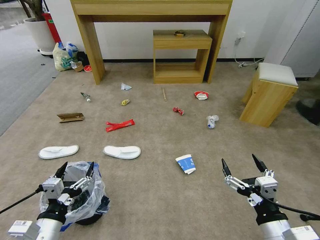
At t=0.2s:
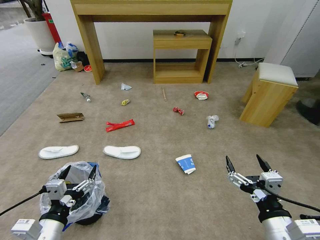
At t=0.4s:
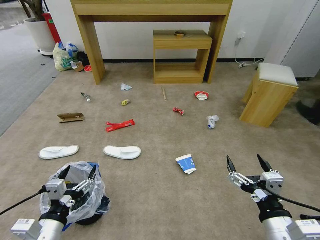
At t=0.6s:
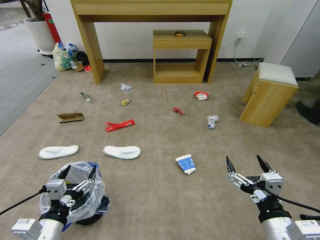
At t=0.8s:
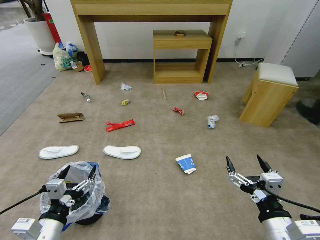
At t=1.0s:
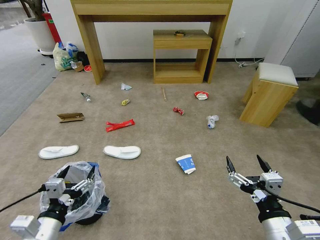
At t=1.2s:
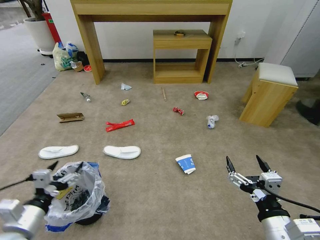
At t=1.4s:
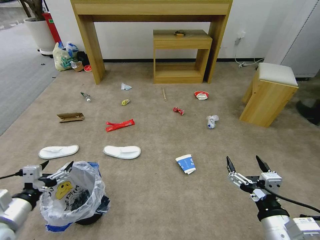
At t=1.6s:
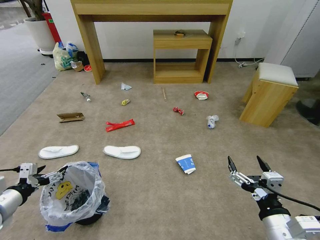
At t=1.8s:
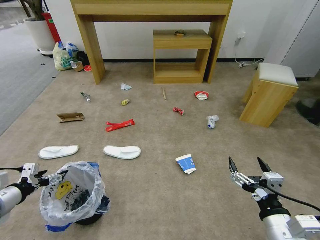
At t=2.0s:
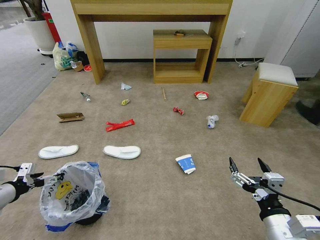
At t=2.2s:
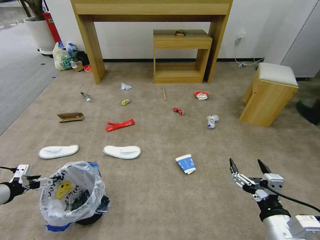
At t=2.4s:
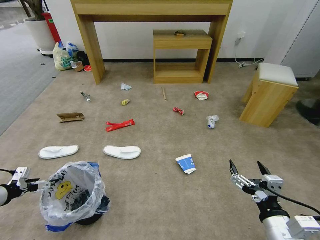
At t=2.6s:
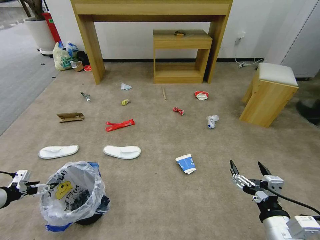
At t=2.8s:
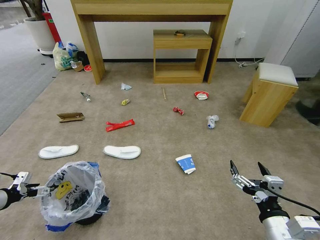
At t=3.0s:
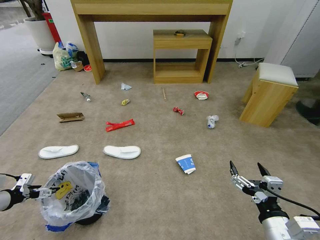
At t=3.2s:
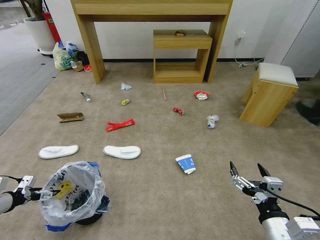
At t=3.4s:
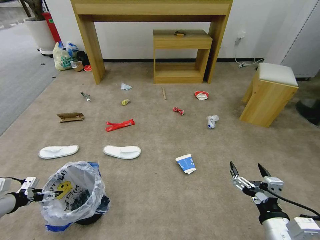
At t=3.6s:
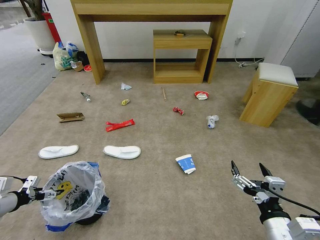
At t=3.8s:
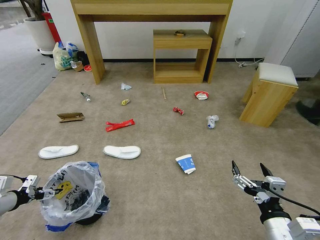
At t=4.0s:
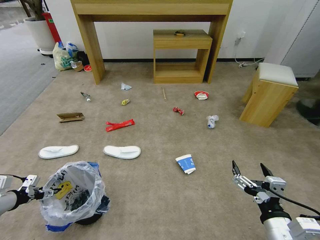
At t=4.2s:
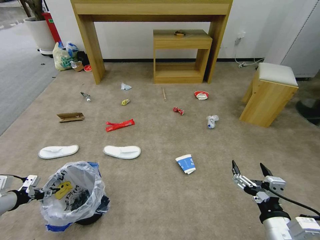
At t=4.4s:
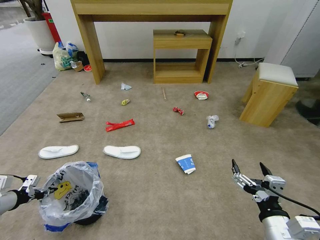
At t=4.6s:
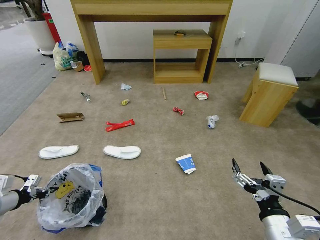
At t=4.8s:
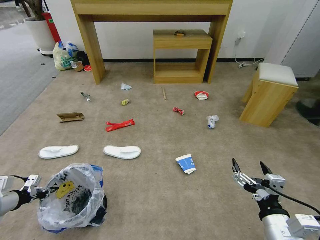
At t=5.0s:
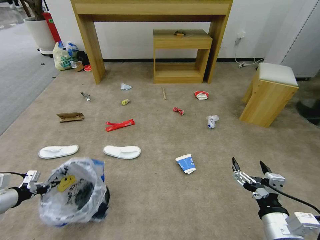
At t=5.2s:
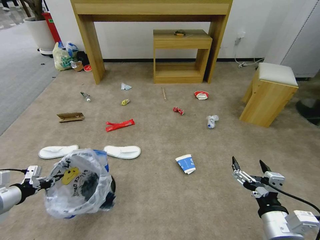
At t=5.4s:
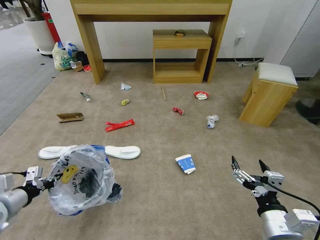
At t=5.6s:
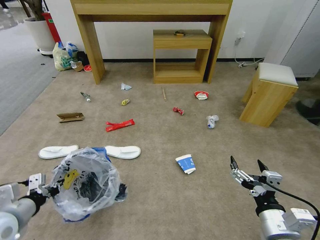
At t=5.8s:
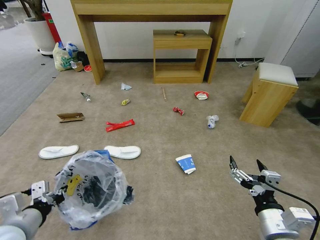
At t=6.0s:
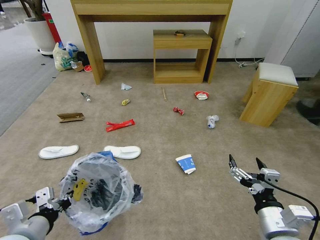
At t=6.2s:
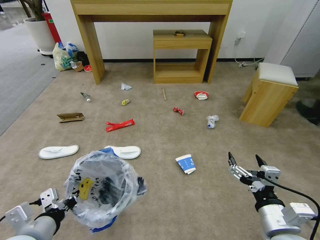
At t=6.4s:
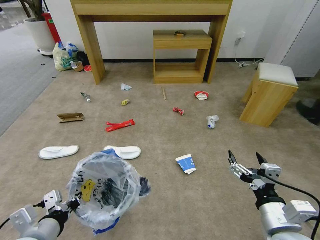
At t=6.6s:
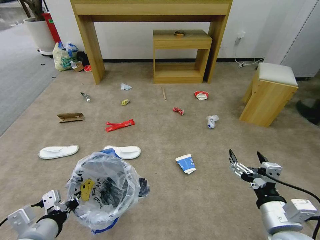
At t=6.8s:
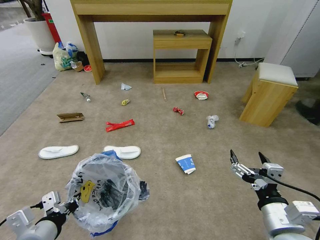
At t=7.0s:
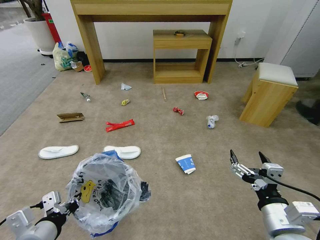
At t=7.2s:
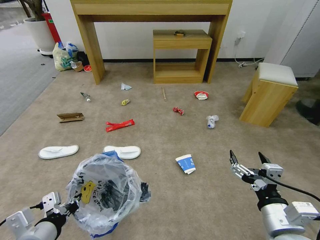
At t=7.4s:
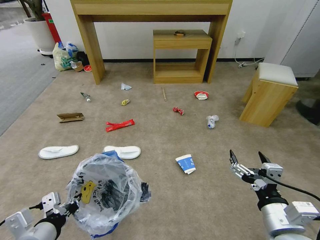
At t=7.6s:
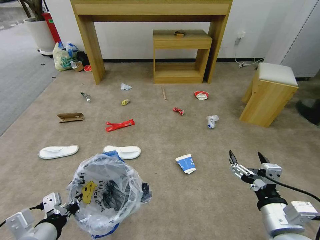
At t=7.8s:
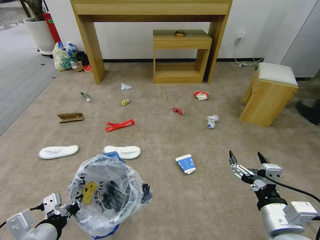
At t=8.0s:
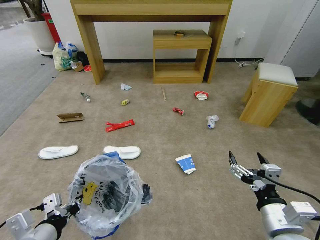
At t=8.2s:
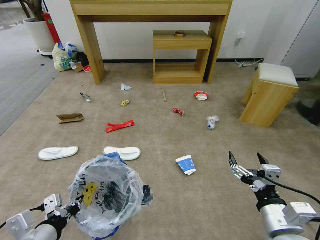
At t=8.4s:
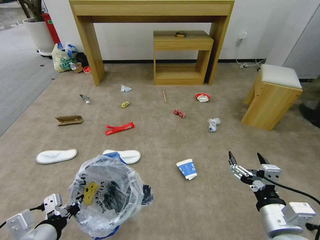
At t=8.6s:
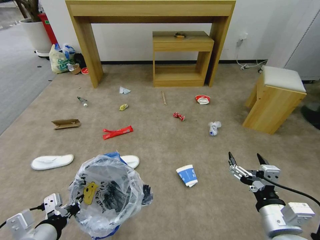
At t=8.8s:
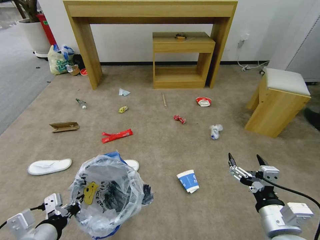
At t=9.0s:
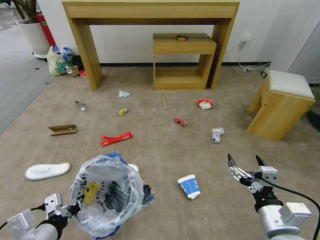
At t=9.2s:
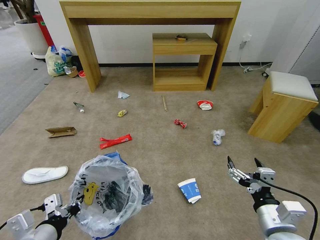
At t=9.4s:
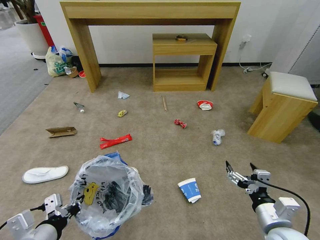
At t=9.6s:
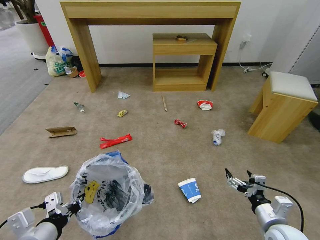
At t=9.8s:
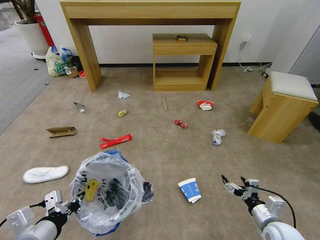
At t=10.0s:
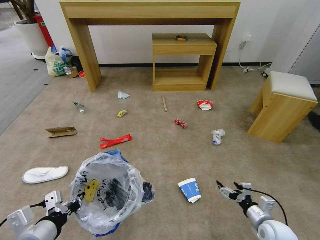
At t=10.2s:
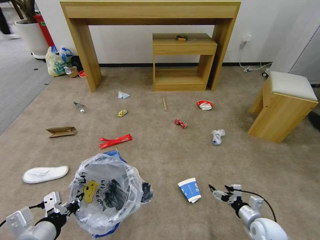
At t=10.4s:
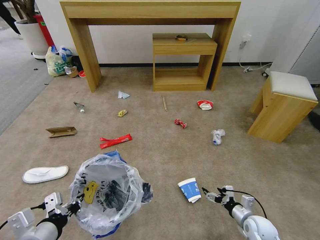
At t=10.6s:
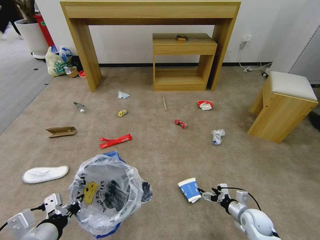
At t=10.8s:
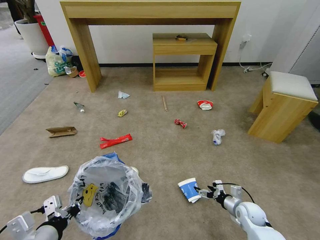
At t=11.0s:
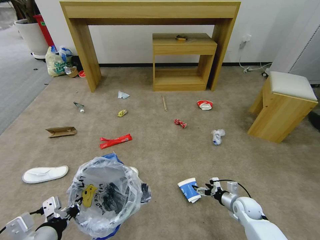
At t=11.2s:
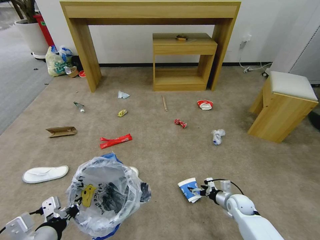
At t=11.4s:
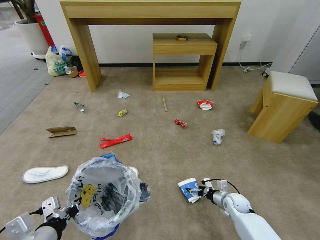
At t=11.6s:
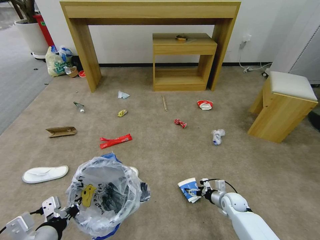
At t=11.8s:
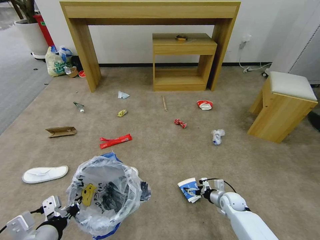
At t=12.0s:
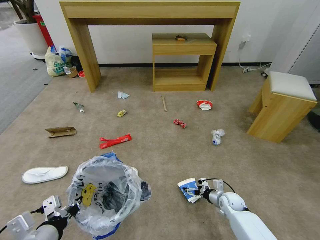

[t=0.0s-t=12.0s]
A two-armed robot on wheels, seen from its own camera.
Task of the whole recording: Pick up the trash bin and place the garbage on the floor into it.
t=1.6s to t=3.0s: The left gripper moves to the left and forward, roughly 10 cm.
t=3.0s to t=4.4s: The left gripper closes up.
t=4.4s to t=6.0s: The left gripper moves to the right and backward, about 25 cm.
t=6.0s to t=7.6s: The grippers stay close to where they were, moving slightly.
t=9.0s to t=10.4s: The right gripper moves downward and forward, roughly 25 cm.
t=10.4s to t=12.0s: The right gripper heads forward and downward, covering roughly 10 cm.

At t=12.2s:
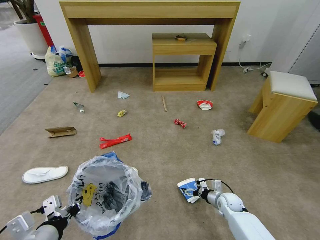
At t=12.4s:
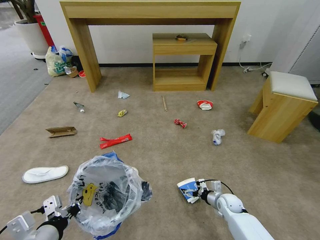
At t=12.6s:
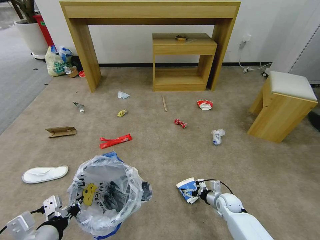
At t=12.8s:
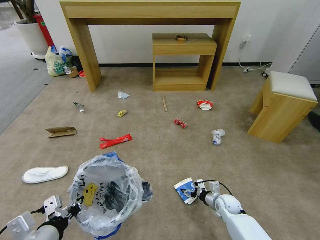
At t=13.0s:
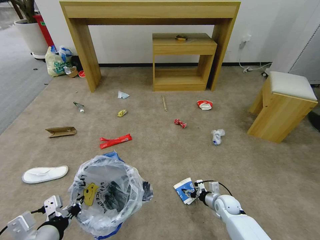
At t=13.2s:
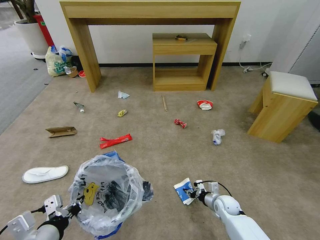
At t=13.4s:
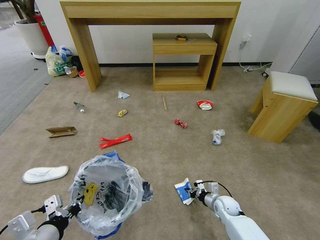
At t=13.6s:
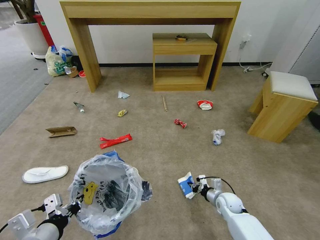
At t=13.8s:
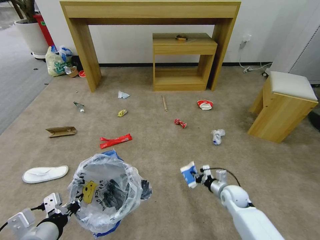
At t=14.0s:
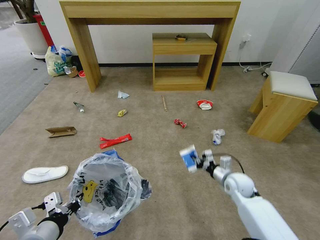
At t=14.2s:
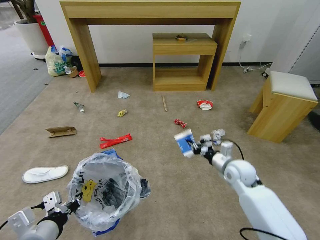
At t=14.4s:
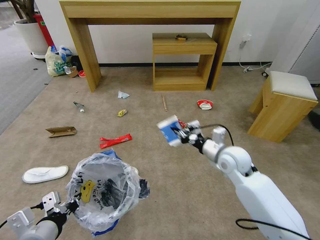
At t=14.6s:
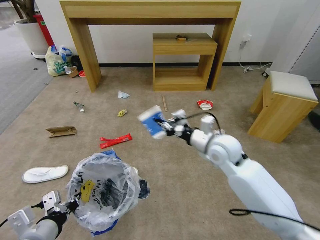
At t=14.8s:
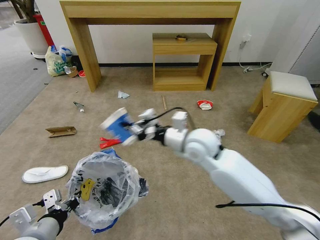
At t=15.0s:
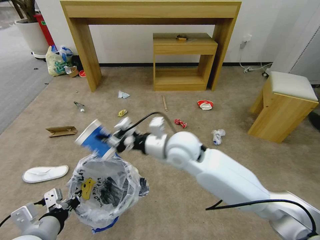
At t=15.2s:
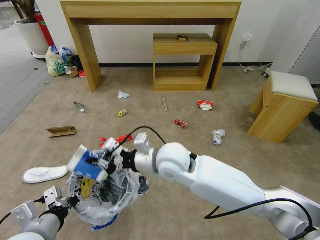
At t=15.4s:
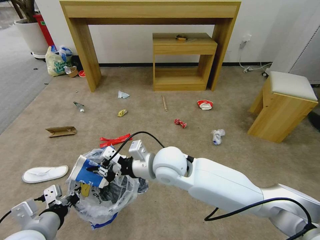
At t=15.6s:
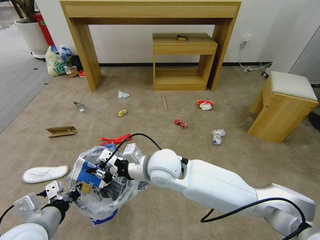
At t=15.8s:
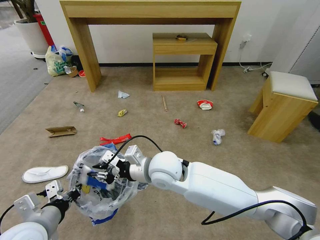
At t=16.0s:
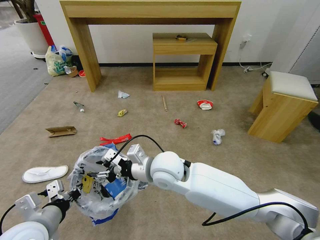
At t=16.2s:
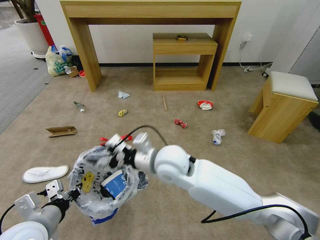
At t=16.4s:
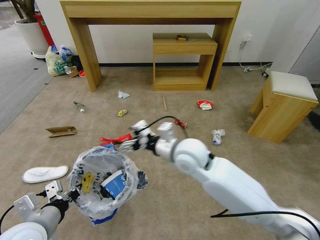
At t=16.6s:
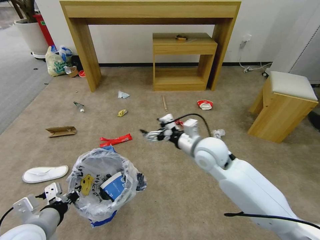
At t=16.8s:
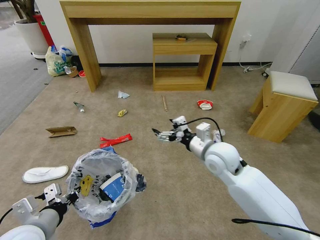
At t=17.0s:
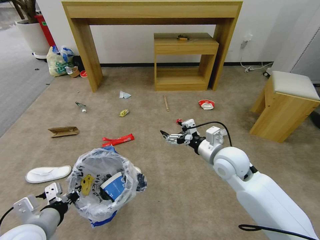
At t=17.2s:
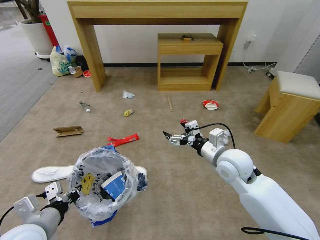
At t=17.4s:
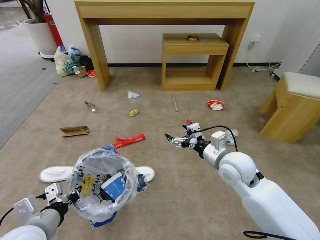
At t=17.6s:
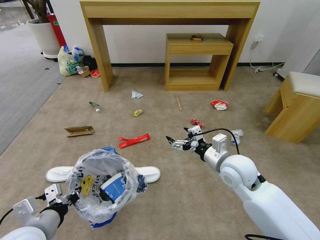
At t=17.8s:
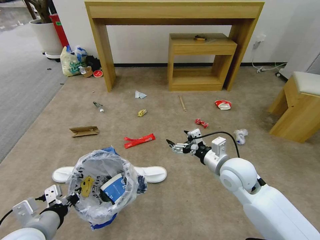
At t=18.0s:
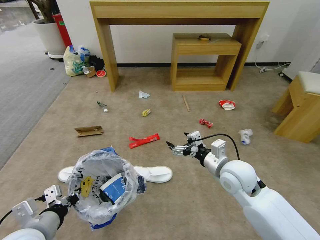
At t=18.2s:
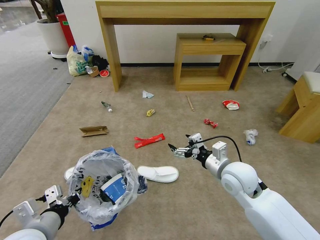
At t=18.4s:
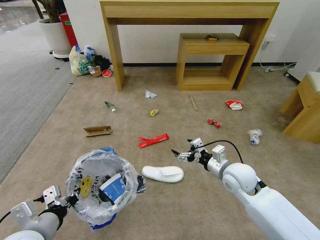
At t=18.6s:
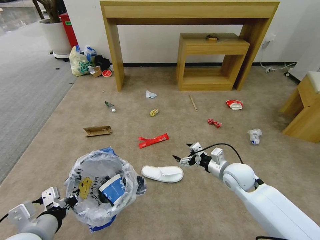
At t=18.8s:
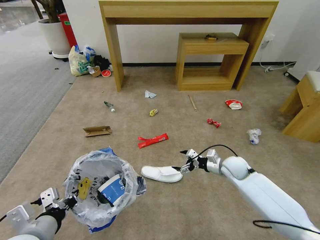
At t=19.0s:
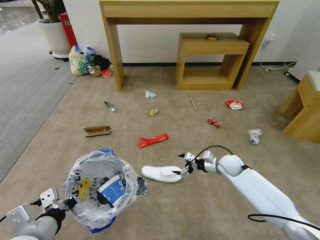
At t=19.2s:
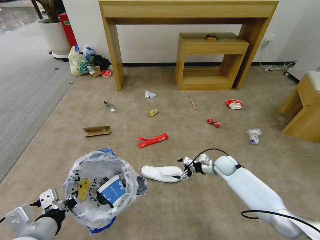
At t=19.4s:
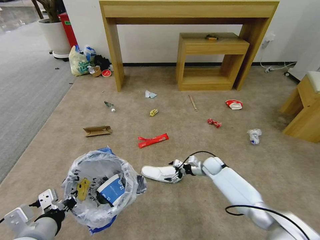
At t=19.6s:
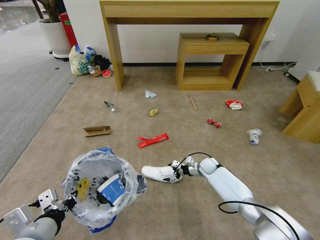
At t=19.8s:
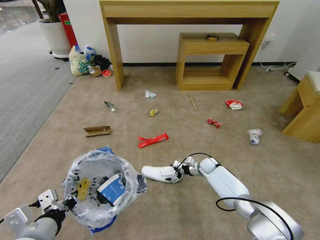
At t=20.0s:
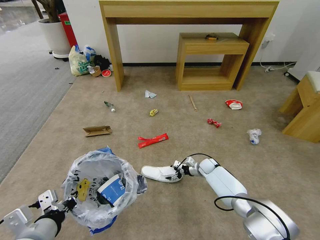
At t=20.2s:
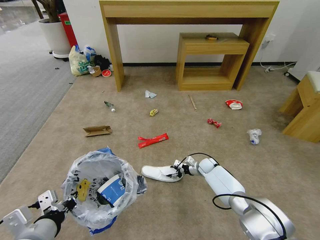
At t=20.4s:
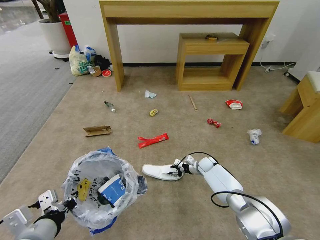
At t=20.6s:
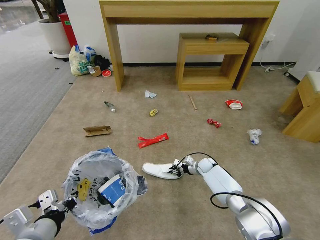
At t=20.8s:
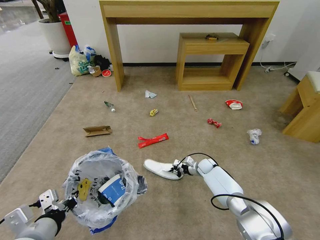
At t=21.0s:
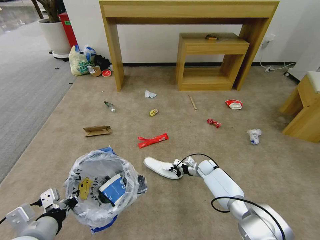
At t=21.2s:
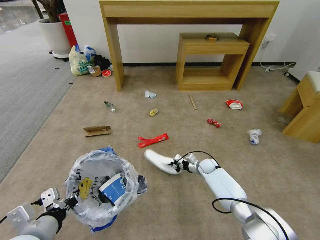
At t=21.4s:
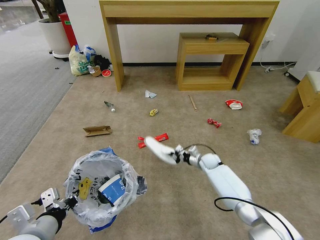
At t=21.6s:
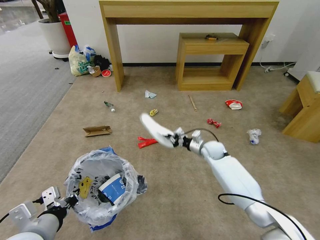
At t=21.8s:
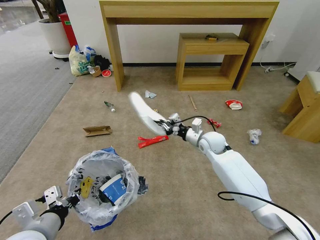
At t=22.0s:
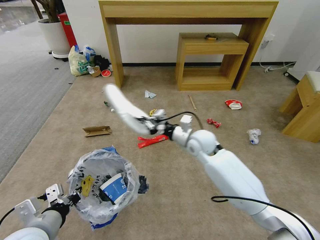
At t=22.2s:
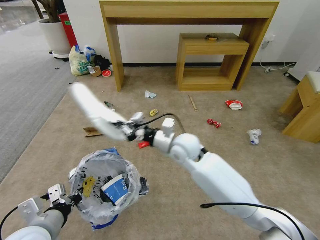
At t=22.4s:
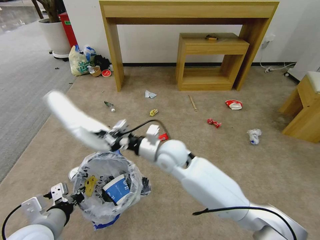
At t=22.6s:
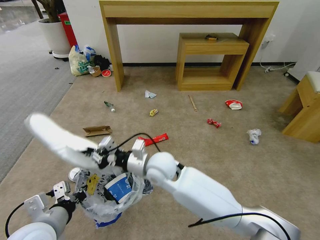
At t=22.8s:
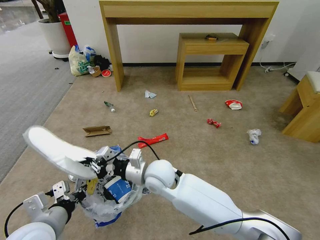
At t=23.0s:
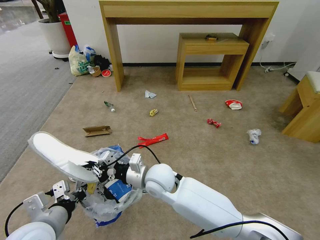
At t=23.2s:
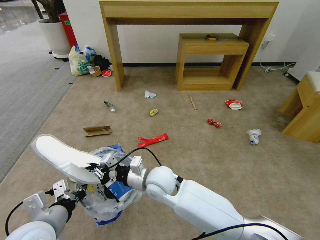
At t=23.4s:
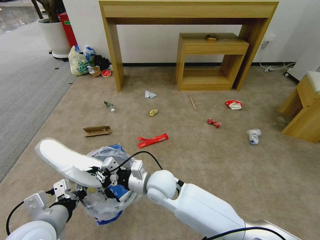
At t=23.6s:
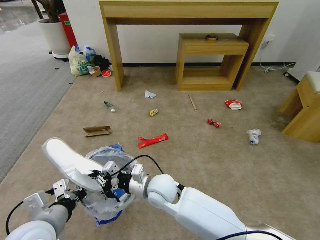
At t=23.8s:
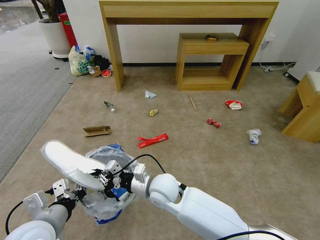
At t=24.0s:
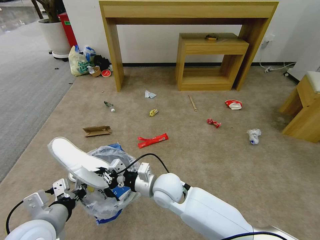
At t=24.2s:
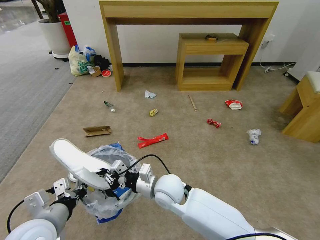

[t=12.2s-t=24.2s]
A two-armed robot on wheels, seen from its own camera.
Task of the whole recording: Pick up the trash bin and place the garbage on the floor into it.
t=12.2s to t=13.8s: The right gripper travels upward by roughly 5 cm, and closes up.
t=13.8s to t=15.2s: The right gripper is displaced upward and to the left by roughly 40 cm.
t=15.2s to t=16.6s: The right gripper travels to the right by roughly 10 cm, and opens up.
t=16.6s to t=18.2s: The right gripper travels to the right, backward and downward by some 10 cm.
t=18.2s to t=19.8s: The right gripper is displaced downward and forward by roughly 30 cm.
t=19.8s to t=21.2s: The right gripper closes up.
t=21.2s to t=22.6s: The right gripper shifts some 40 cm to the left, upward and backward.
t=22.6s to t=24.2s: The right gripper is displaced downward by approximately 5 cm.
